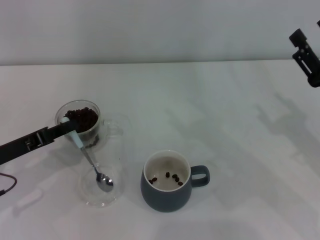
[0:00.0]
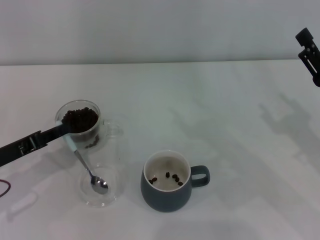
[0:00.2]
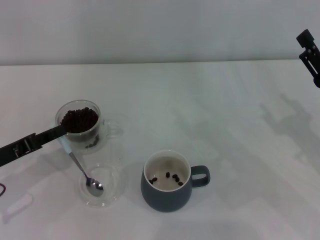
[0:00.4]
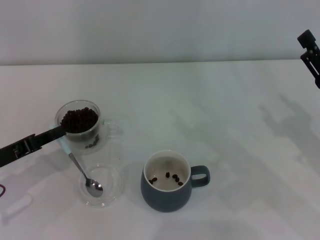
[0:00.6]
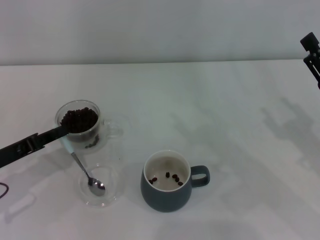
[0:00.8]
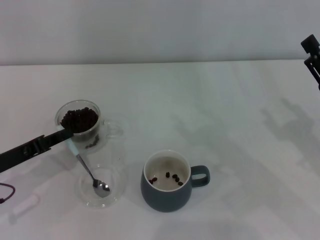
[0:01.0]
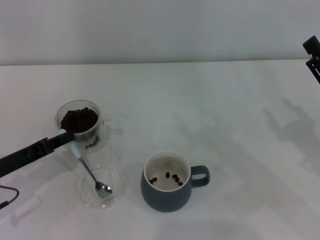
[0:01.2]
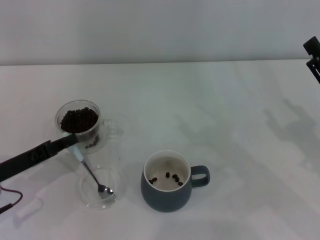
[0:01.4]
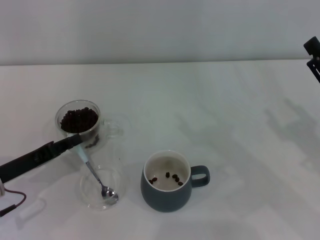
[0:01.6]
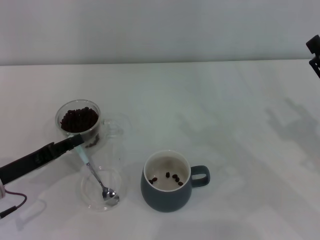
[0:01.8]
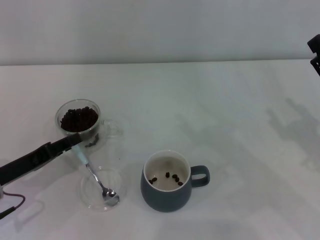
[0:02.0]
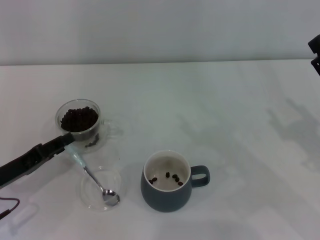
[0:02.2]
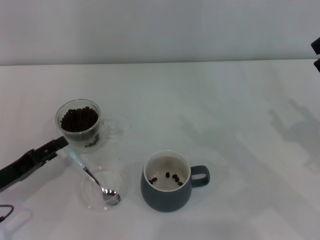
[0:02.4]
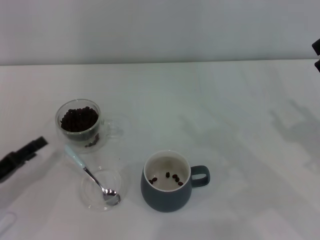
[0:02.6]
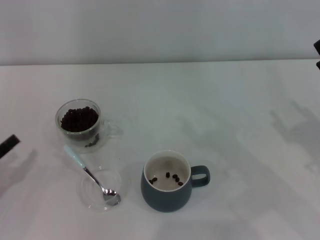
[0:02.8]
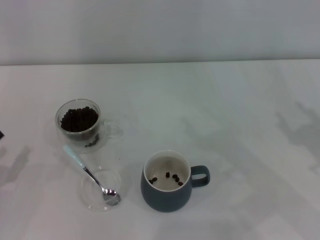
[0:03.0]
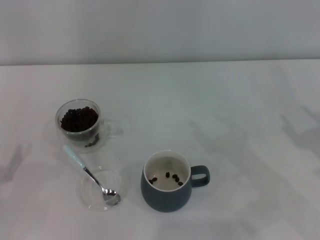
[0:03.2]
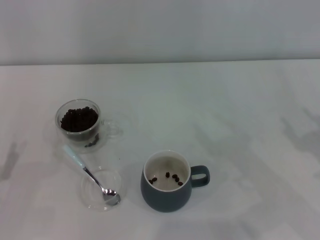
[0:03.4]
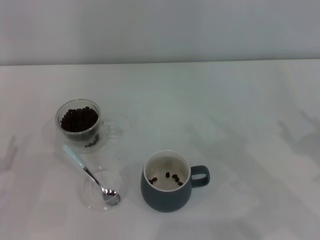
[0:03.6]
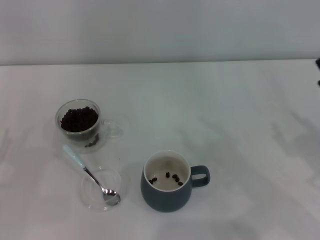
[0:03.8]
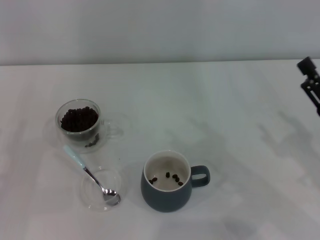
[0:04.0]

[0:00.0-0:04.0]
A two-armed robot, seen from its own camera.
Task of the whole recording: Use a blue spoon to take out the coffee beans from the glass and pour them into the gray cup.
Step, 0:00.0 to 0:02.4: Place the spoon back in its original place with the right gripper.
0:00.0 to 0:01.4: The grippers stay close to where they were, moving slightly.
0:01.4 to 0:02.6: The left gripper changes place by some 5 cm, and opens its fingers.
